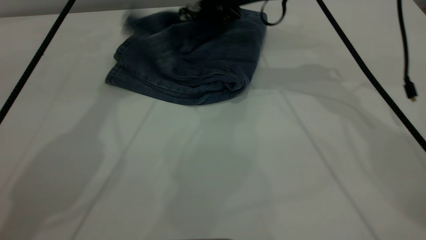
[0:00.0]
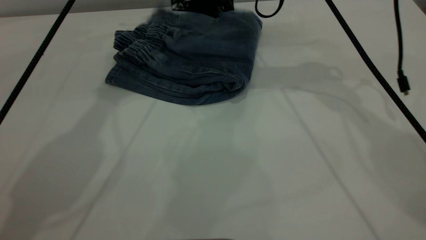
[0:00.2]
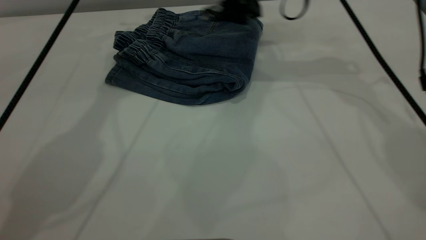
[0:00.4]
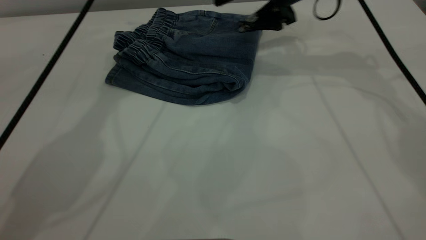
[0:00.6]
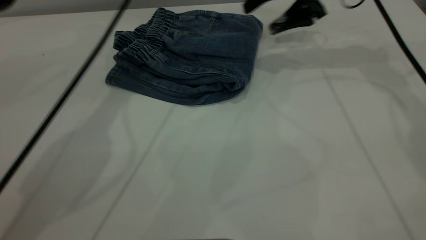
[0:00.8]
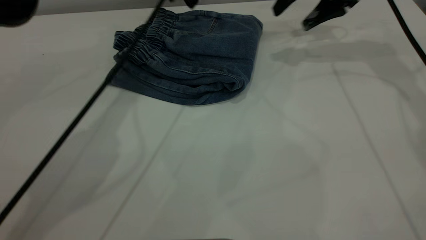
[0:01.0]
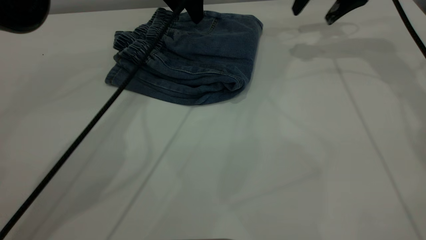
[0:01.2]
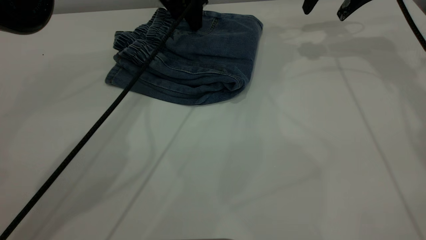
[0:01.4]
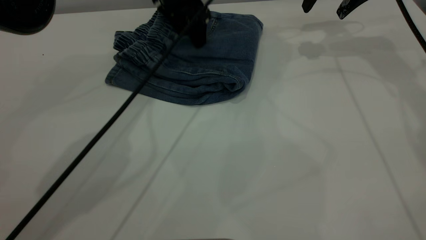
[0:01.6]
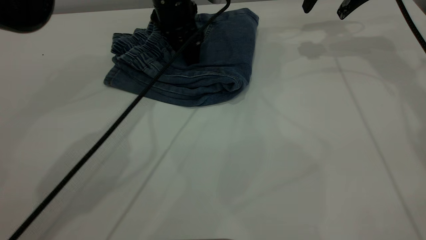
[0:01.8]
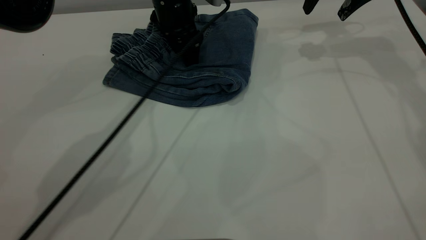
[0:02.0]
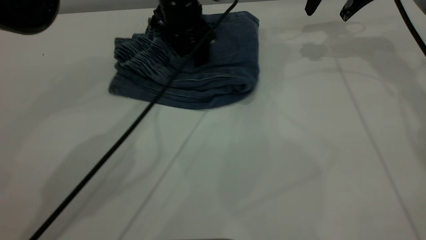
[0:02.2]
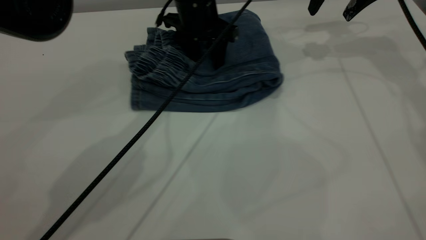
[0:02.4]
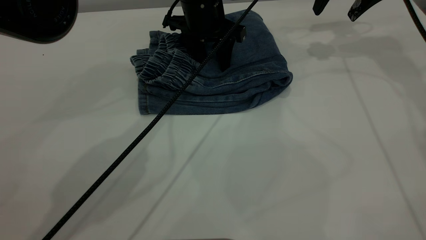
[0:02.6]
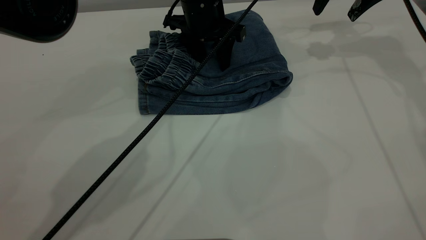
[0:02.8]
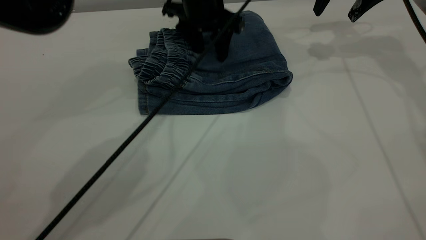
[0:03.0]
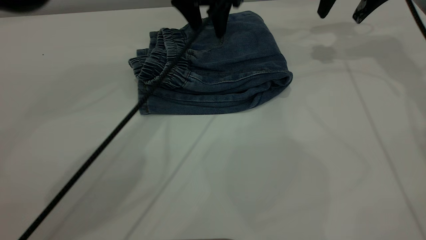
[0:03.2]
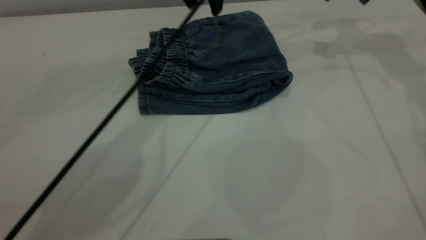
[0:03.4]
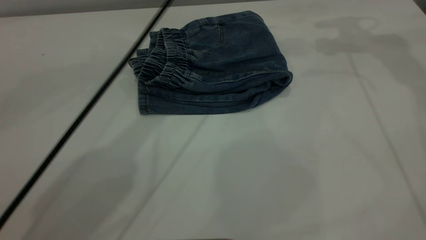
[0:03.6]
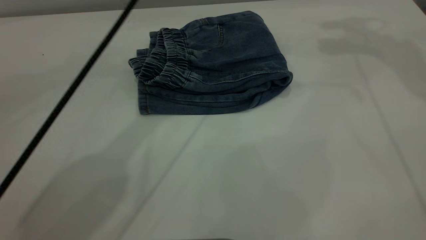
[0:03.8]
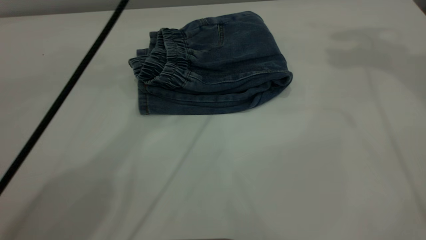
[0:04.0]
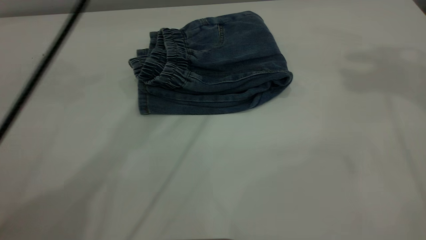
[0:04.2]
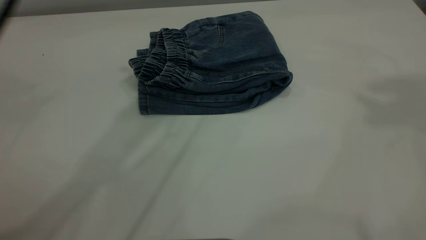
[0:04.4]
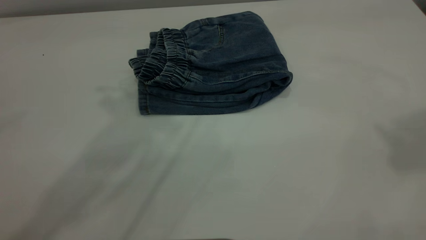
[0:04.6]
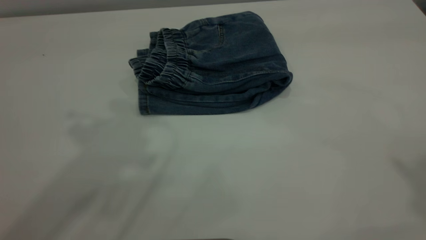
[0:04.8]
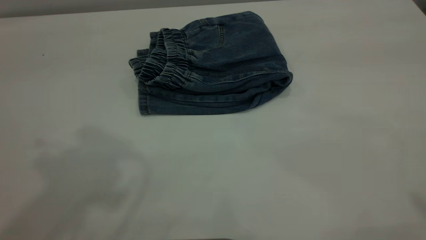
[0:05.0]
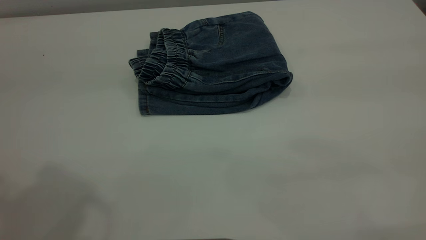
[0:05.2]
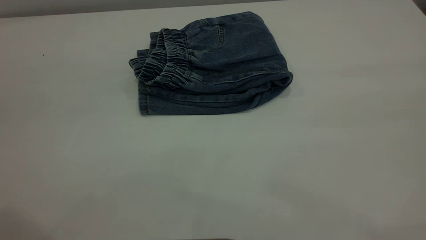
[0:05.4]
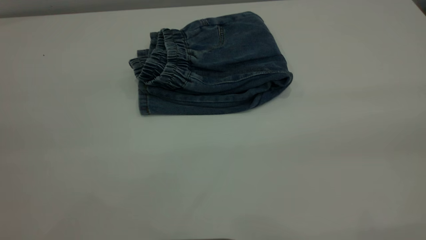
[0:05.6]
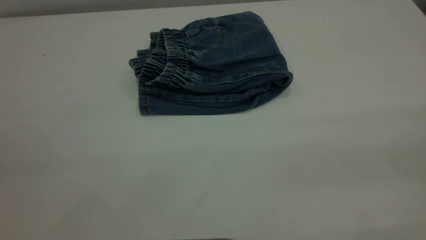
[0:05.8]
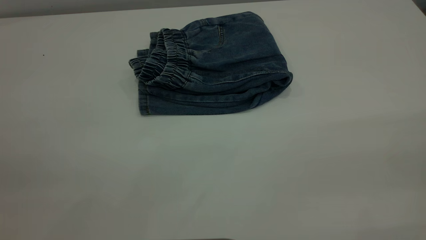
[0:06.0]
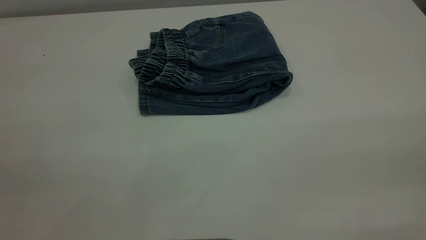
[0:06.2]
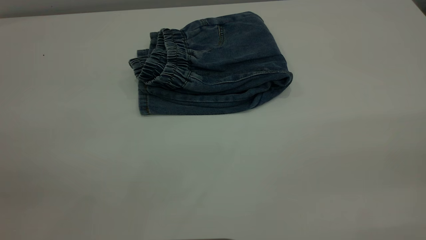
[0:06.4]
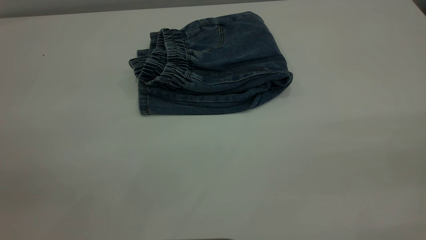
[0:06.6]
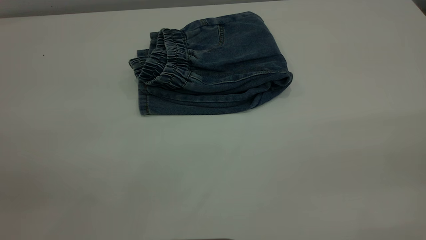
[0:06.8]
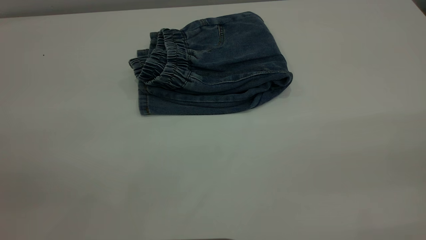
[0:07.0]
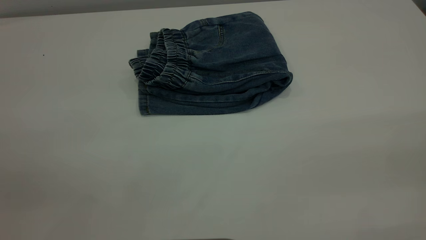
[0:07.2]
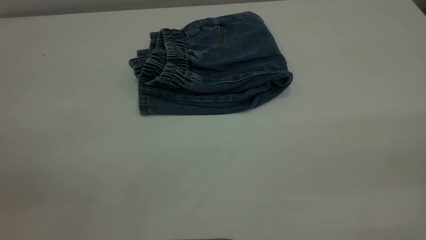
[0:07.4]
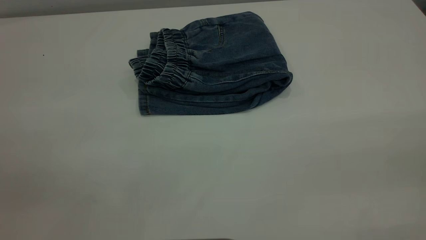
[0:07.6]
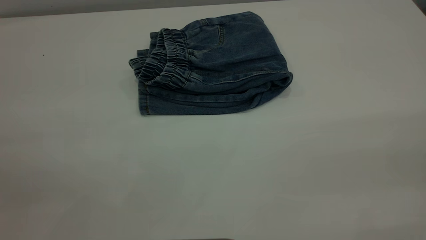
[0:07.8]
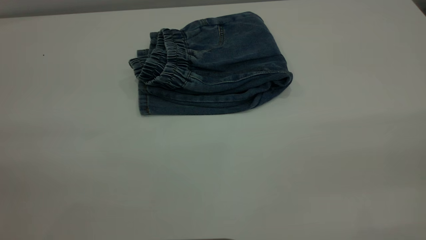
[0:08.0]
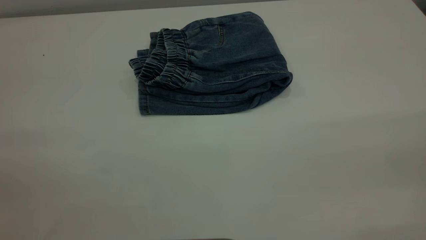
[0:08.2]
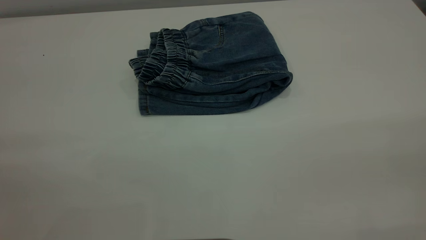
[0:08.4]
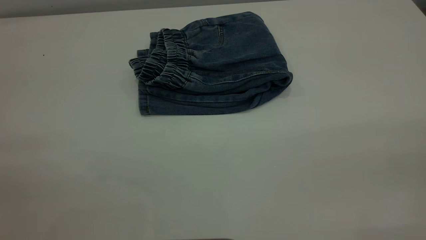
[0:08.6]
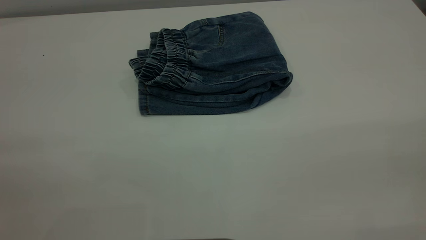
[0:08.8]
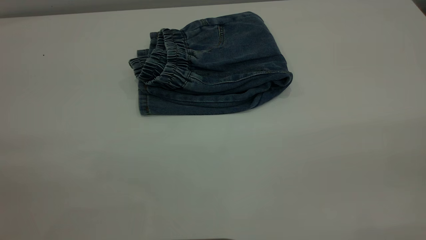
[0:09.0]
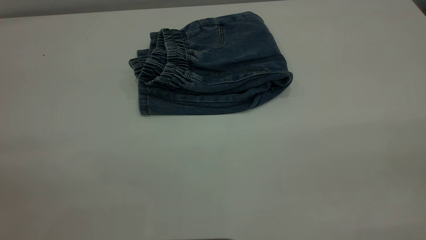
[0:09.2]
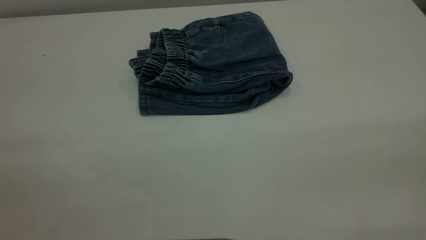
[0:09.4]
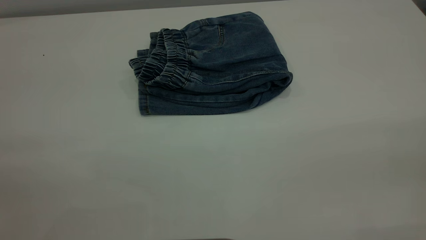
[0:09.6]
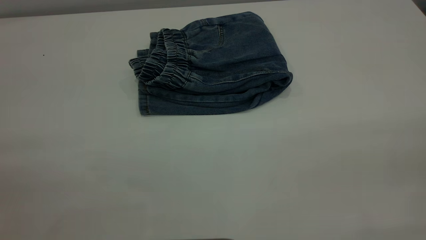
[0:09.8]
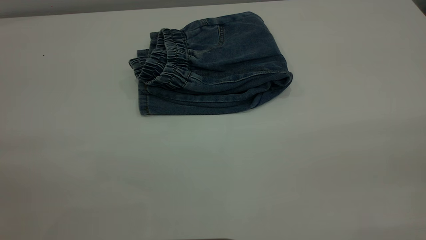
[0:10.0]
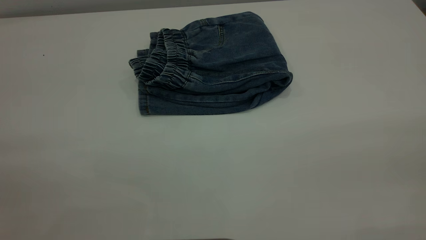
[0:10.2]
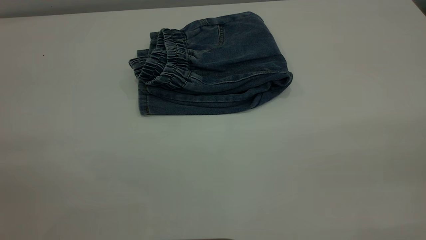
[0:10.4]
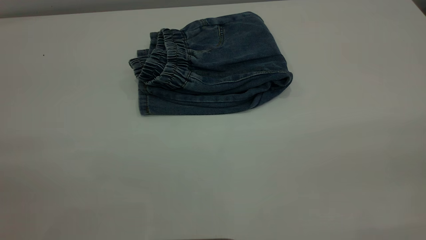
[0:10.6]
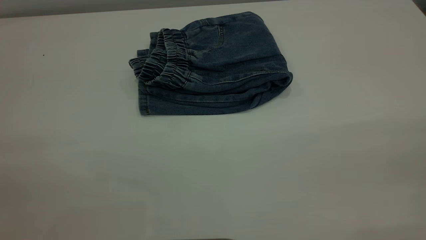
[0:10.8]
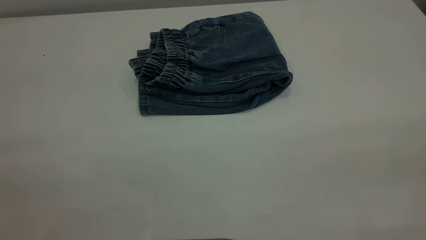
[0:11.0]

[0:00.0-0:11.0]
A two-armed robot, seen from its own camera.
0:00.0 to 0:01.6: The right gripper is displaced to the right by about 15 cm. Meanwhile the left gripper travels downward and to the right by approximately 20 cm.
0:01.6 to 0:03.2: The left gripper is displaced upward by about 5 cm.
0:03.2 to 0:04.8: The left gripper is displaced upward, backward and to the left by some 35 cm, while the right gripper is displaced backward and upward by roughly 50 cm.
0:09.4 to 0:11.0: The two grippers keep their place.

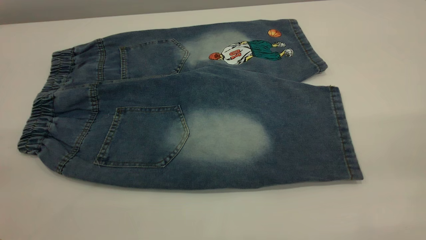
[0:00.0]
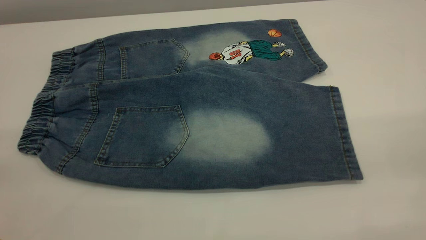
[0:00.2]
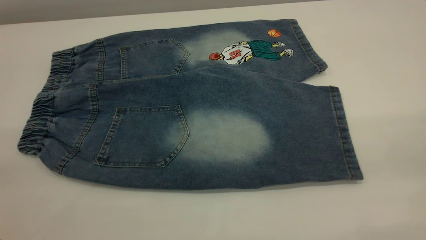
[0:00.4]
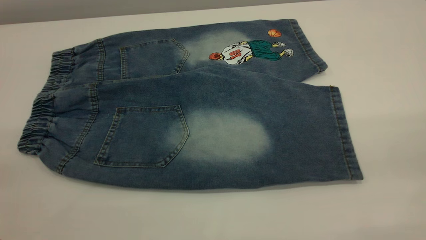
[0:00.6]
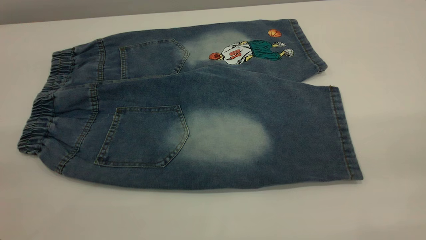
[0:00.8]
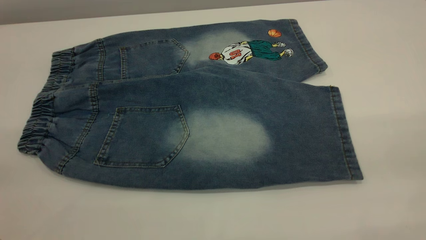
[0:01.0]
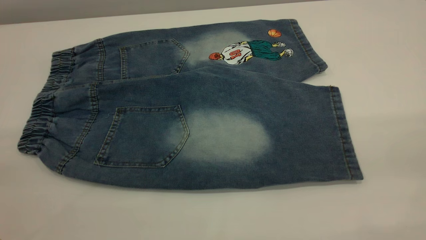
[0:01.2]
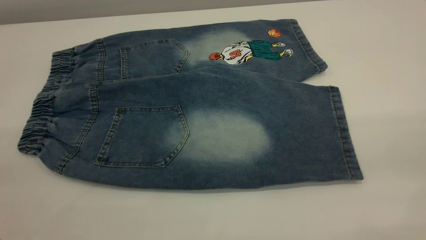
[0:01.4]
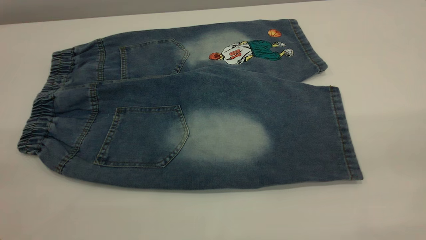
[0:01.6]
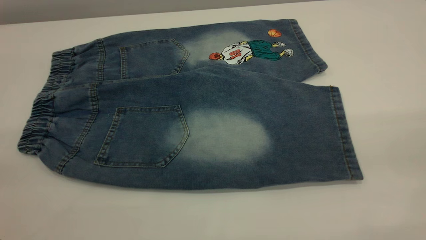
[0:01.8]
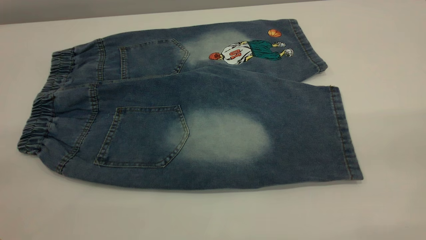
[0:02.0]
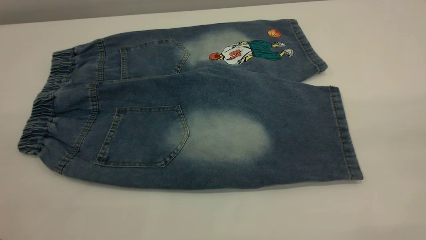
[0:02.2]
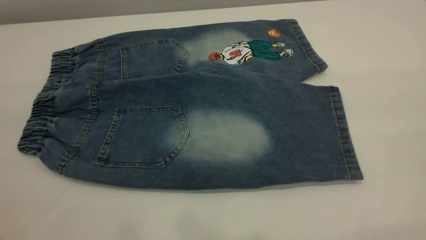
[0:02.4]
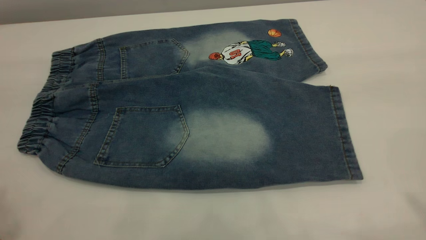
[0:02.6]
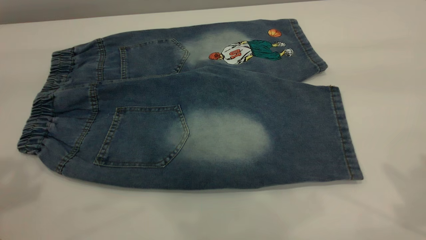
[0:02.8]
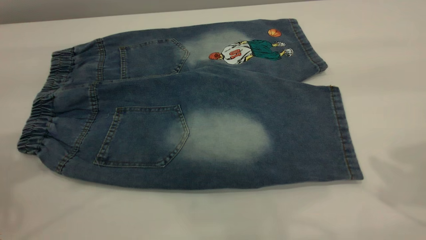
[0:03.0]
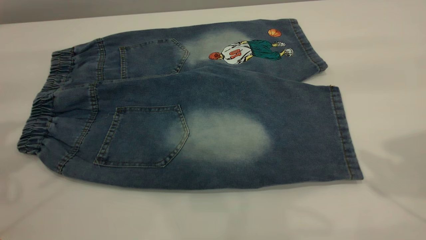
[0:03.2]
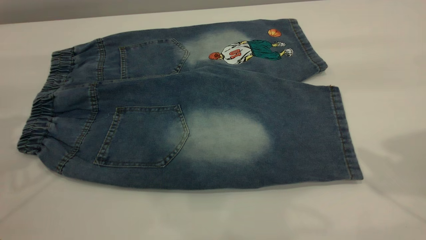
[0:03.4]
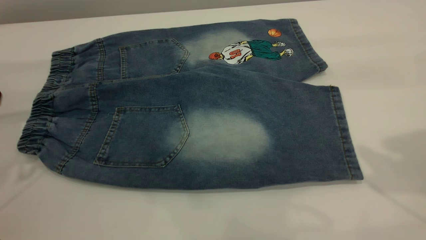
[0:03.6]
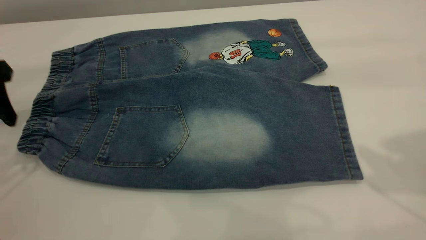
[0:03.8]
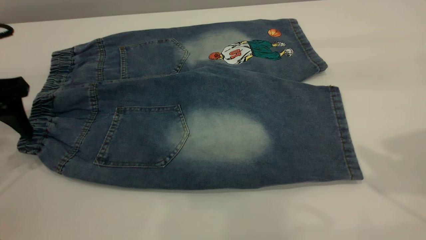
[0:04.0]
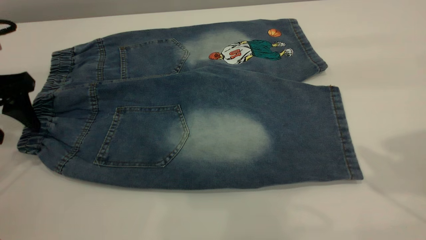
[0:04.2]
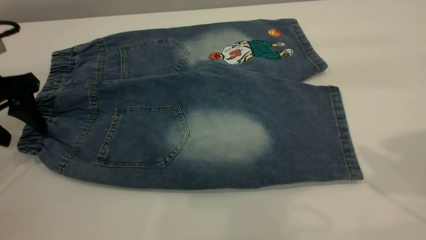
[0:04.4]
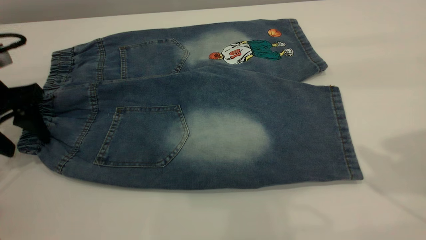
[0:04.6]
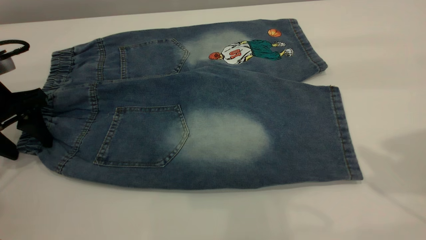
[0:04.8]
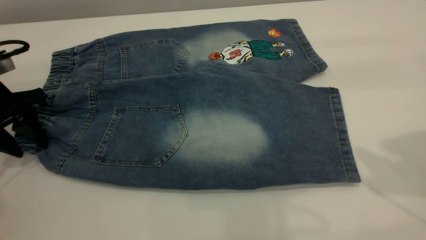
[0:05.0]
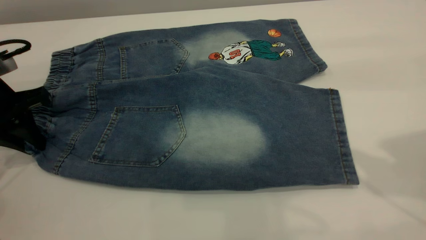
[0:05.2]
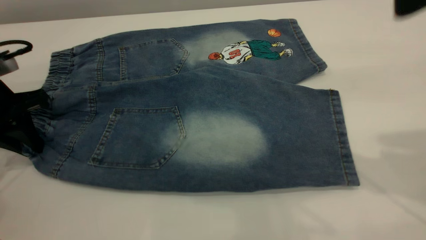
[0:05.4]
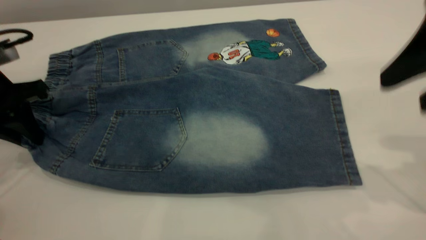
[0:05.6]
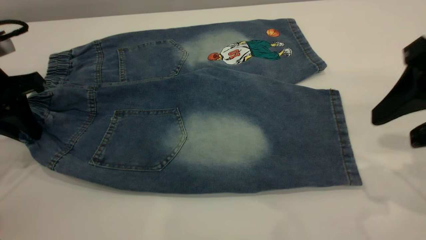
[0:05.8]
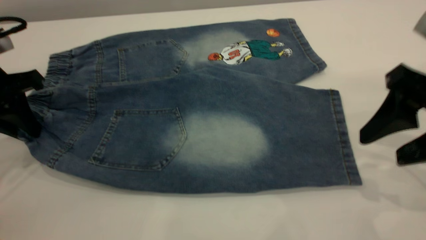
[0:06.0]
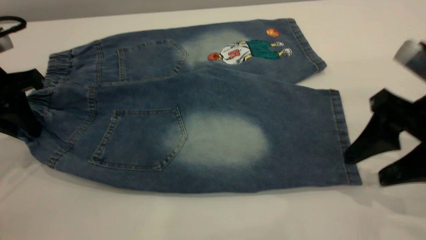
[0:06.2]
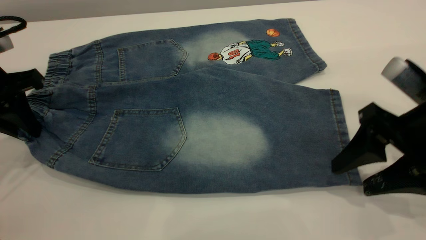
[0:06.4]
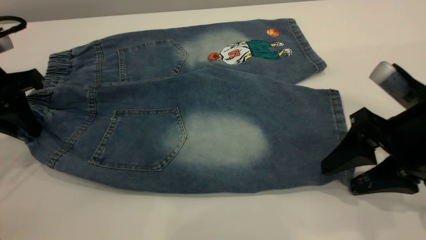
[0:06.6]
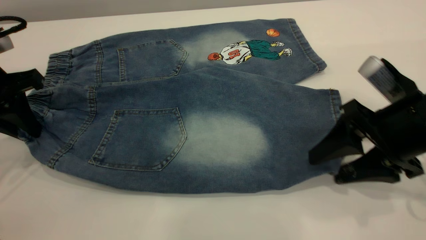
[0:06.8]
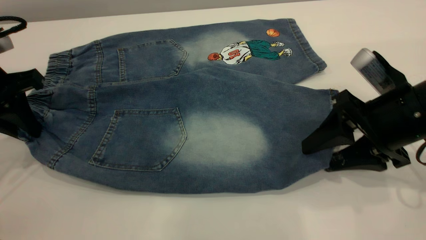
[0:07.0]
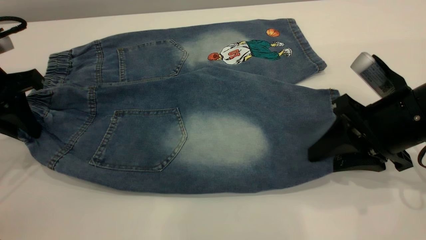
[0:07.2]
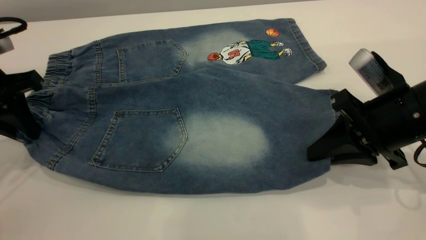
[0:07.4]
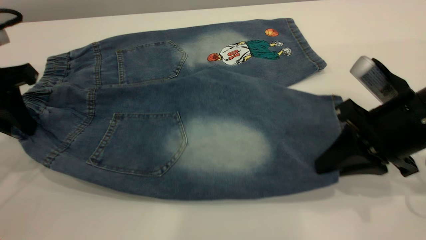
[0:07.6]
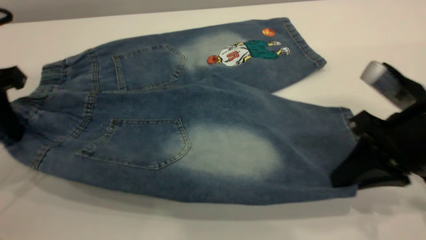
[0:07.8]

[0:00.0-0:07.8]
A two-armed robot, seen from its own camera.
0:00.0 to 0:01.6: Both grippers stay about where they are.
0:03.2 to 0:04.6: The left gripper heads downward, covering approximately 15 cm.
0:04.6 to 0:06.2: The left gripper closes, while the right gripper heads downward, covering about 20 cm.
0:06.2 to 0:07.8: The right gripper closes.
